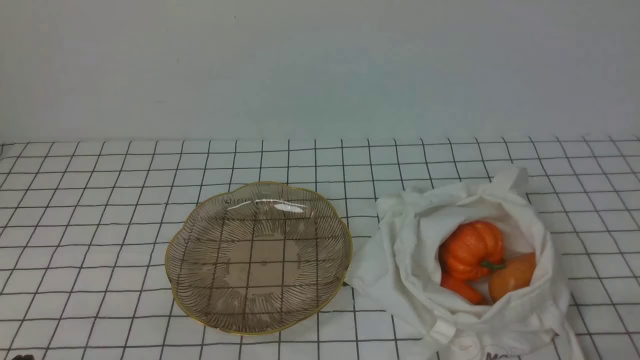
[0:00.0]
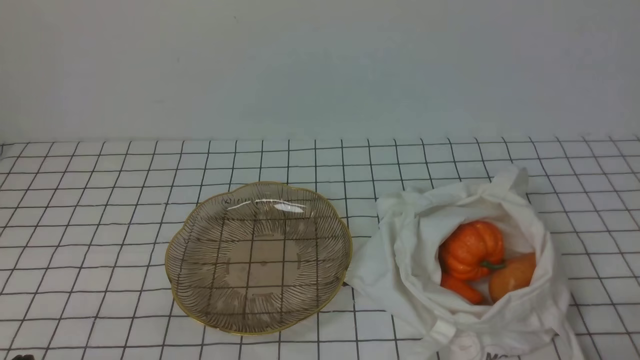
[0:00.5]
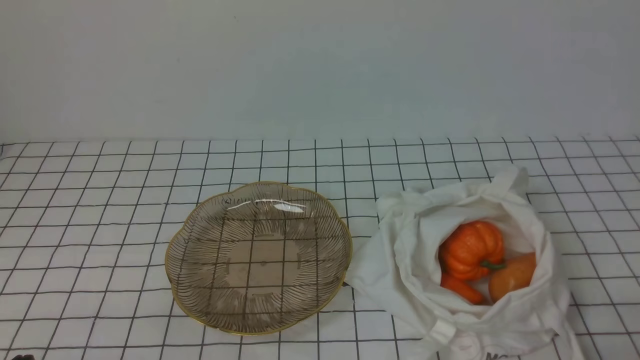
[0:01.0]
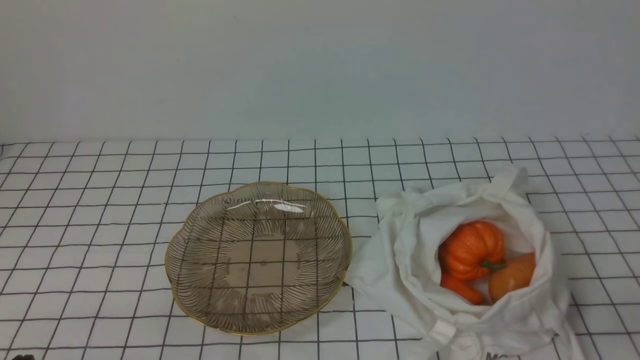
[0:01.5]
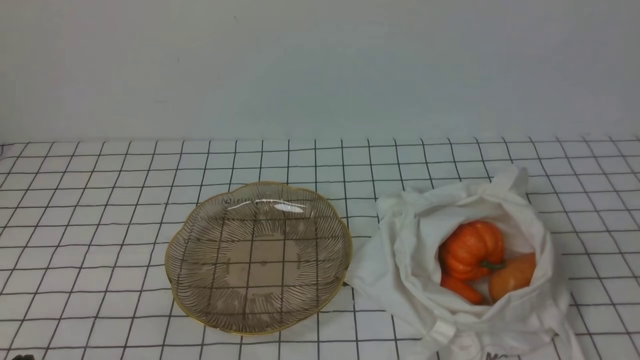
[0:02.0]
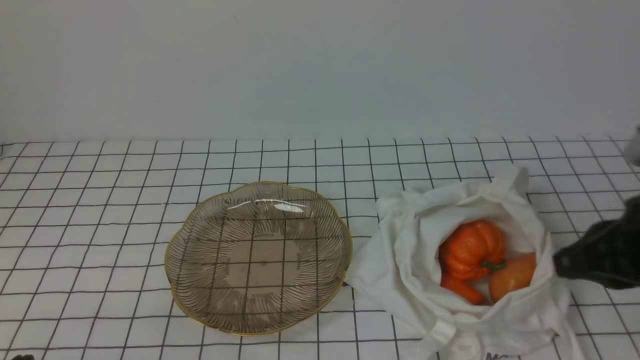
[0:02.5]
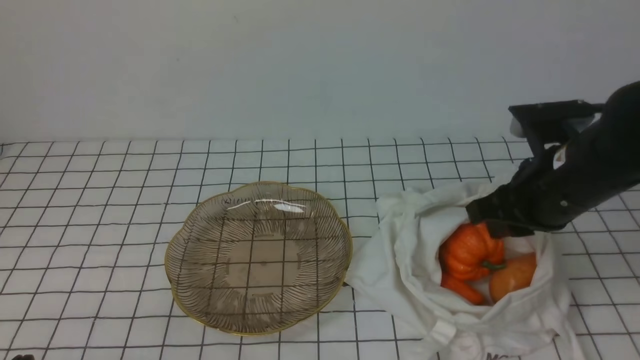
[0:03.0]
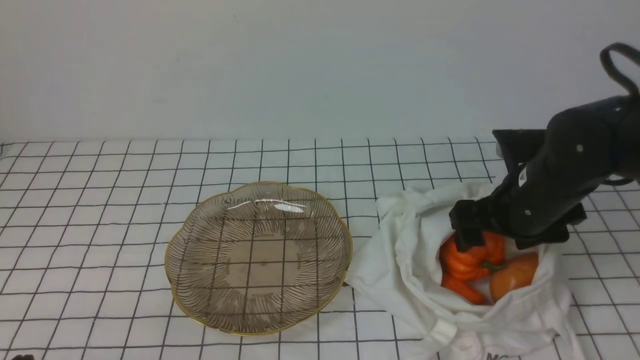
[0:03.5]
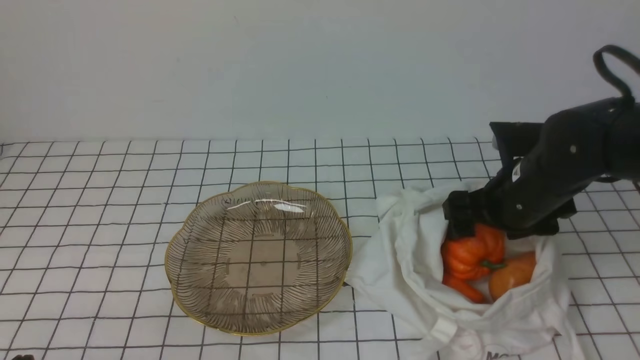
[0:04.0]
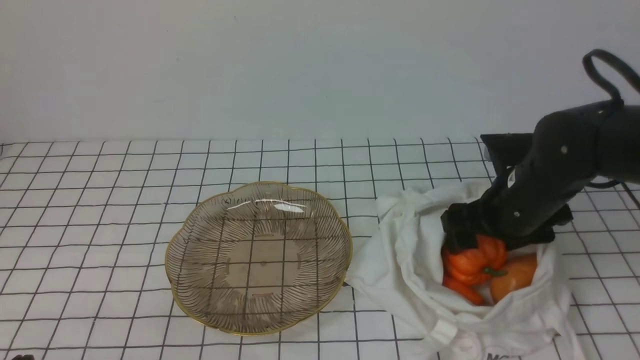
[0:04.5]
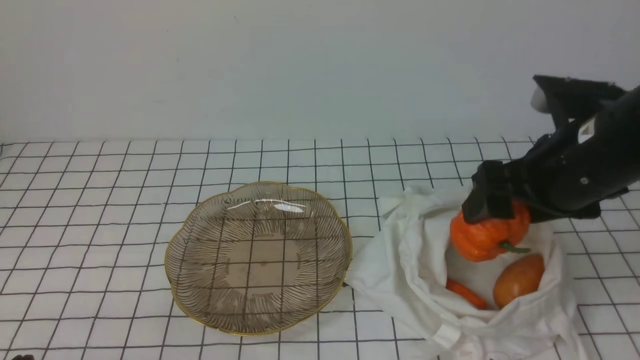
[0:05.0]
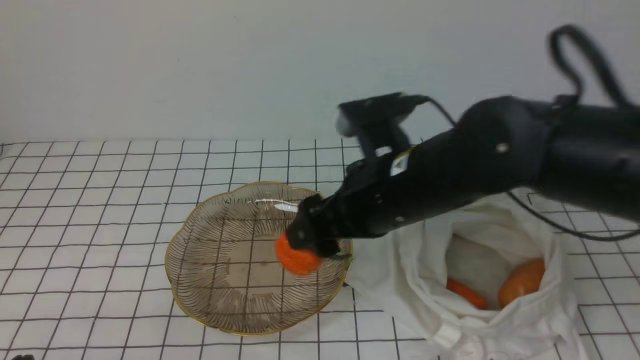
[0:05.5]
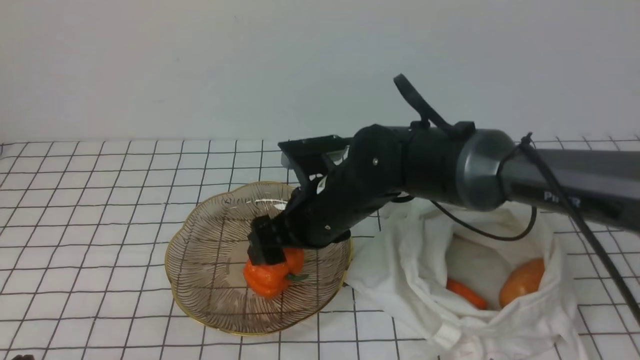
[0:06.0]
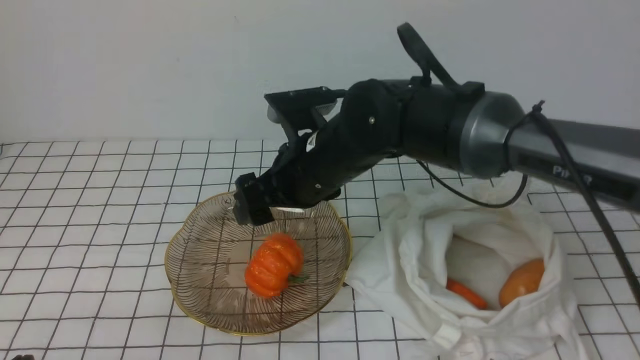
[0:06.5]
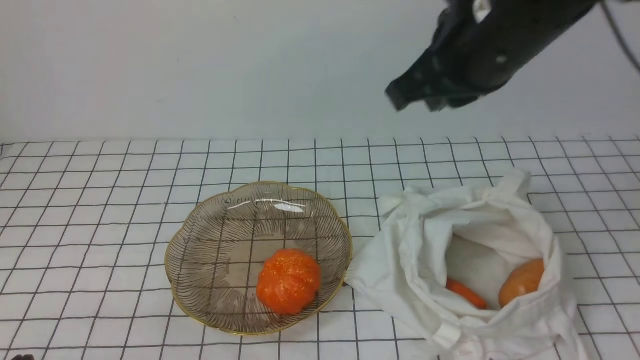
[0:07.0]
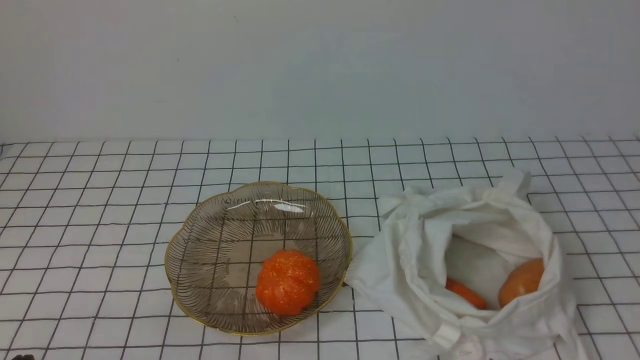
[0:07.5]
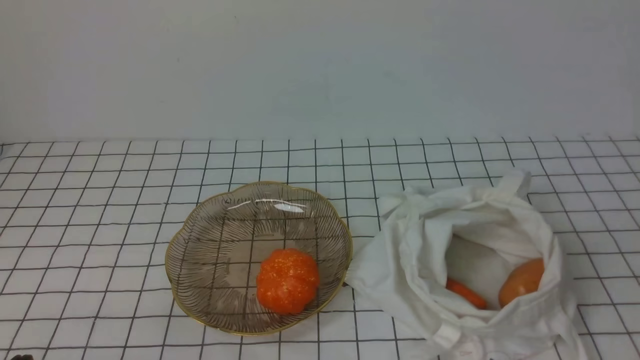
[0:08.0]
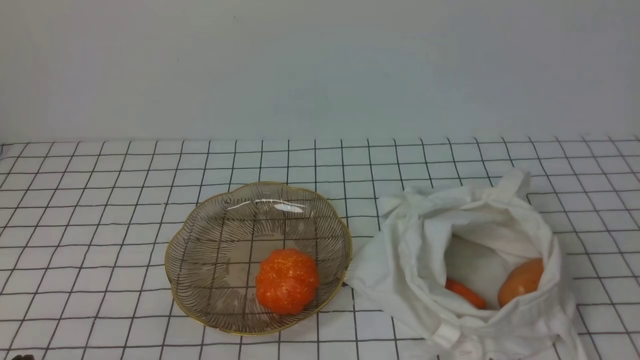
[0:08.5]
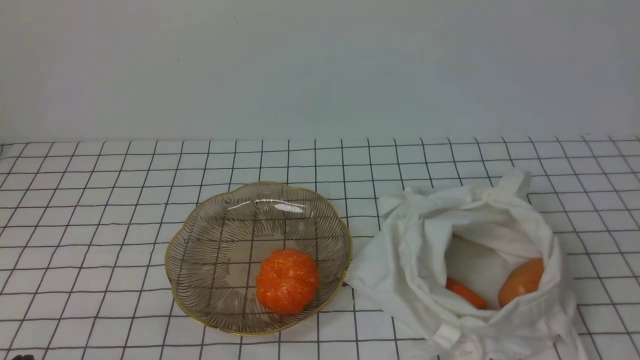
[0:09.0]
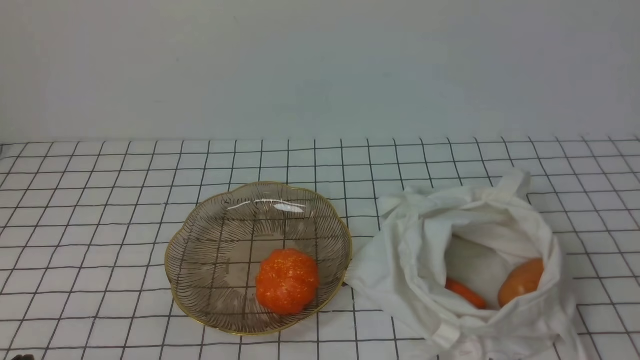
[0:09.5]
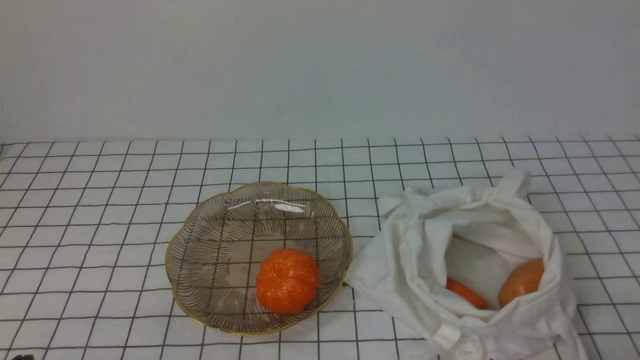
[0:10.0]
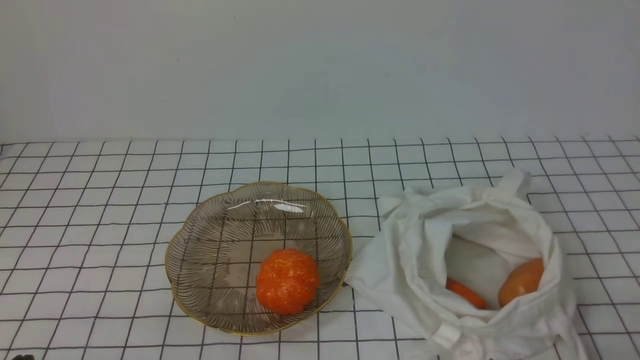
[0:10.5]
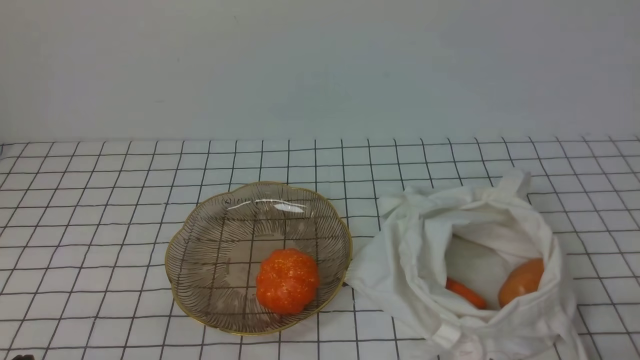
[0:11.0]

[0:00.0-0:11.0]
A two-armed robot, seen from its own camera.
Task of the whole recording: take vegetables from bag on white checkered tablecloth place on plate.
Step, 0:00.0 to 0:04.5: Grasp the pumpkin with right gripper.
Step, 0:05.0 to 0:06.0: Place the pumpkin on the plate with right gripper.
0:02.0 to 0:03.5: The right gripper travels forward by about 25 cm, and opens up.
0:03.5 to 0:05.5: The right gripper heads to the left, covering approximately 15 cm.
0:05.5 to 0:07.5: The right gripper moves to the right, backward and upward, some 35 cm, and closes.

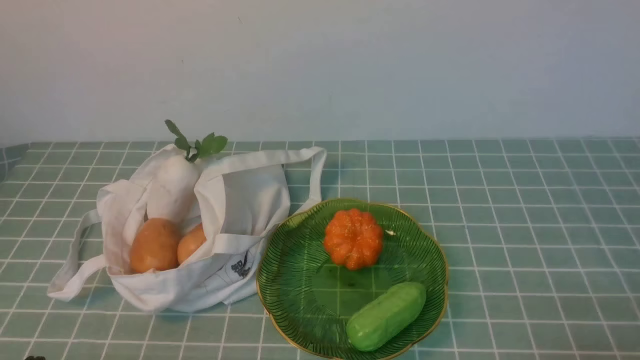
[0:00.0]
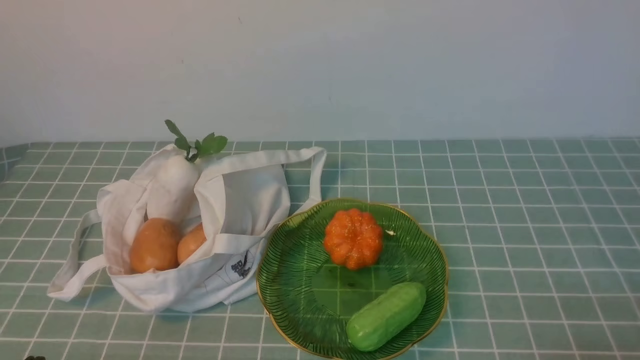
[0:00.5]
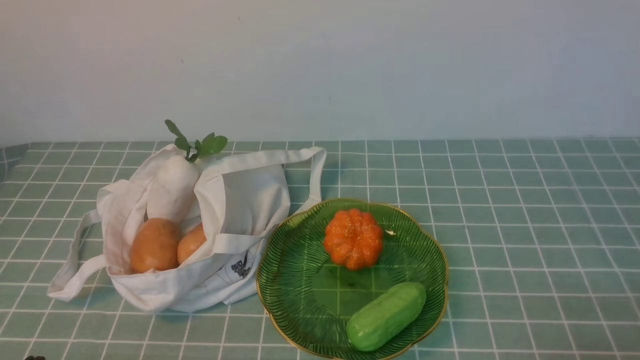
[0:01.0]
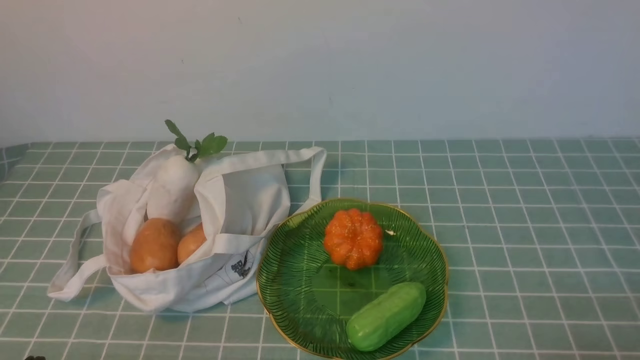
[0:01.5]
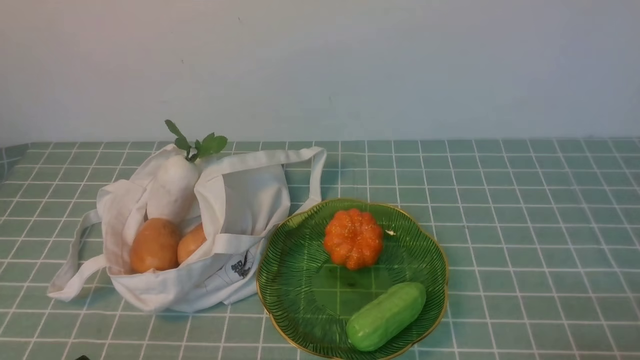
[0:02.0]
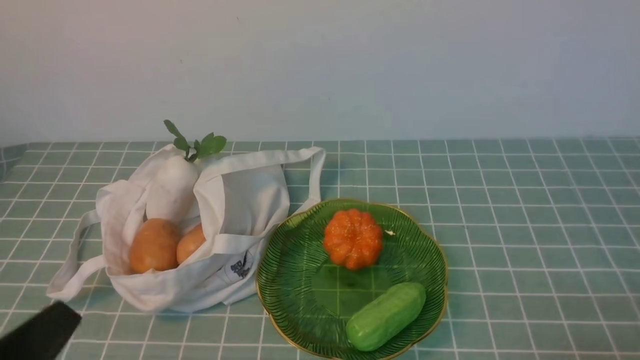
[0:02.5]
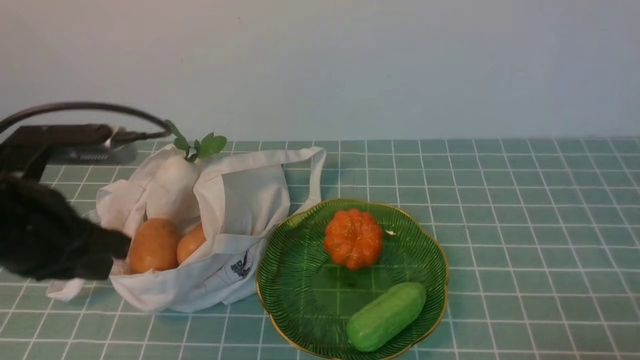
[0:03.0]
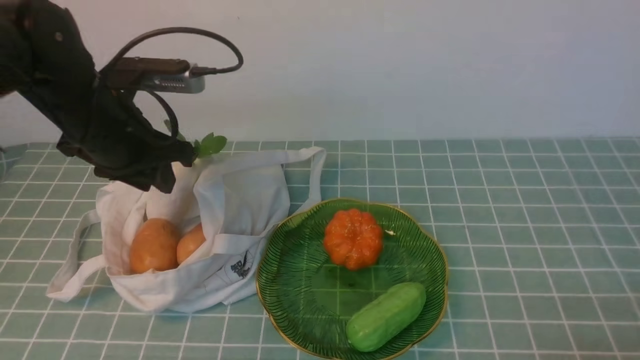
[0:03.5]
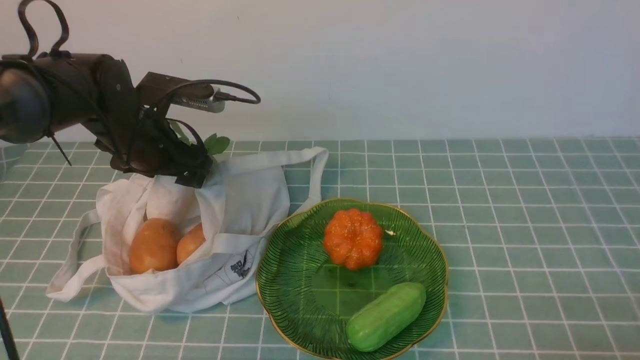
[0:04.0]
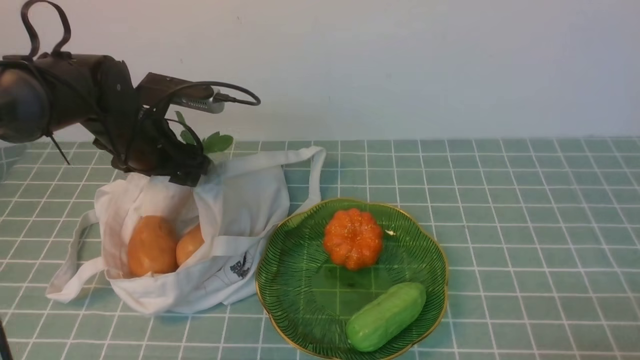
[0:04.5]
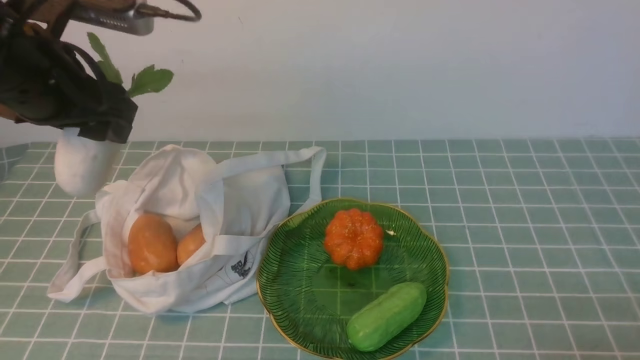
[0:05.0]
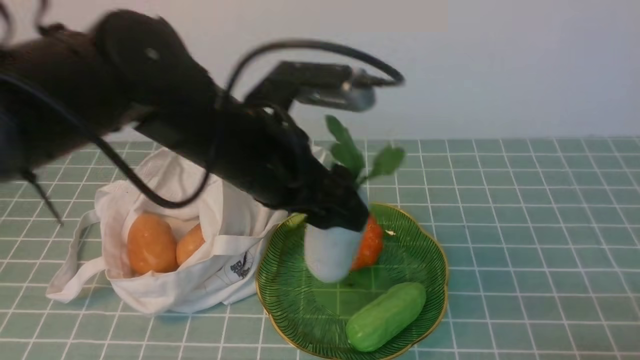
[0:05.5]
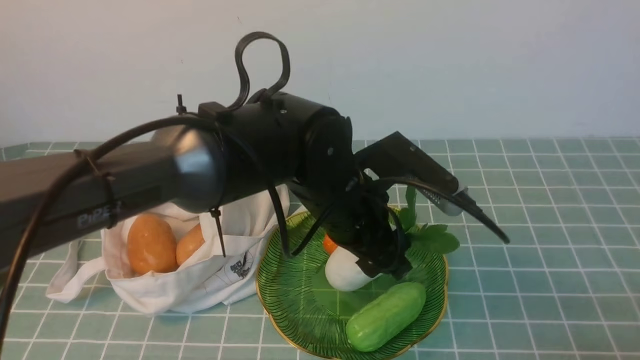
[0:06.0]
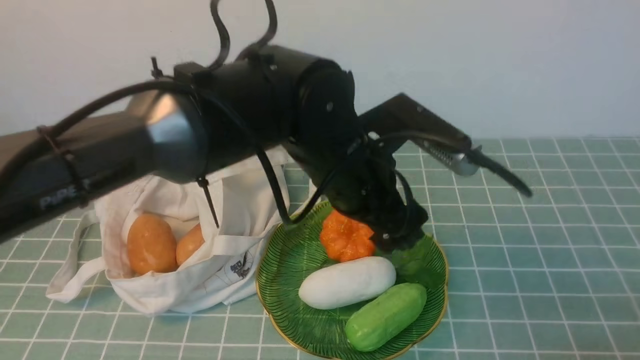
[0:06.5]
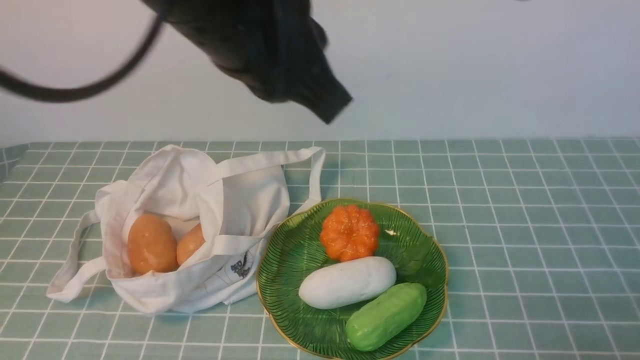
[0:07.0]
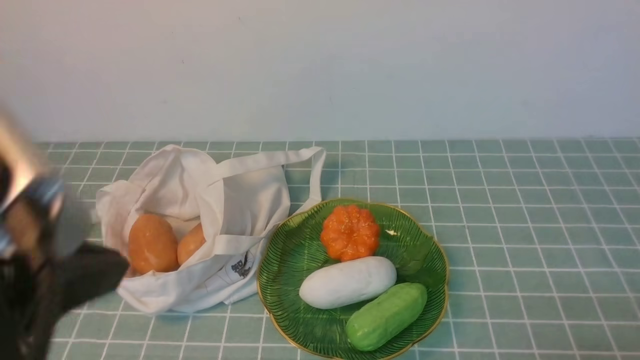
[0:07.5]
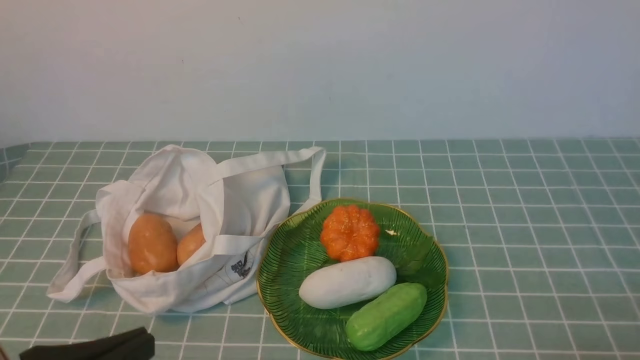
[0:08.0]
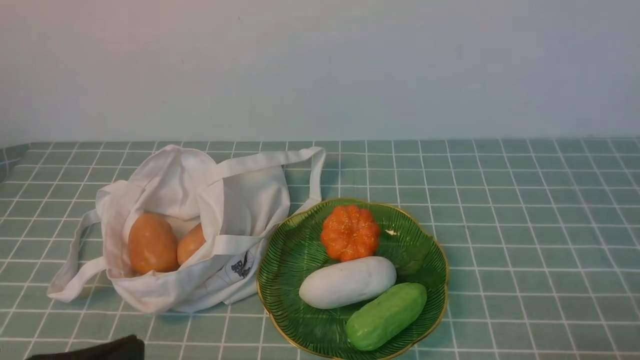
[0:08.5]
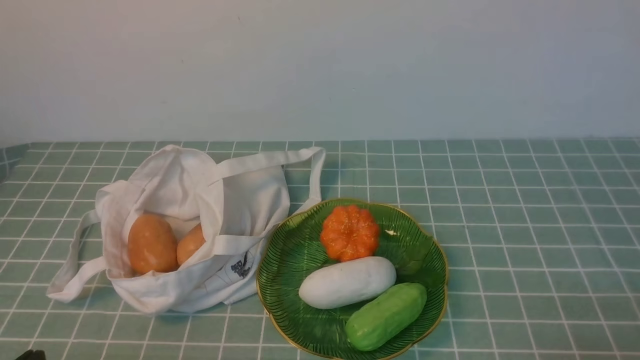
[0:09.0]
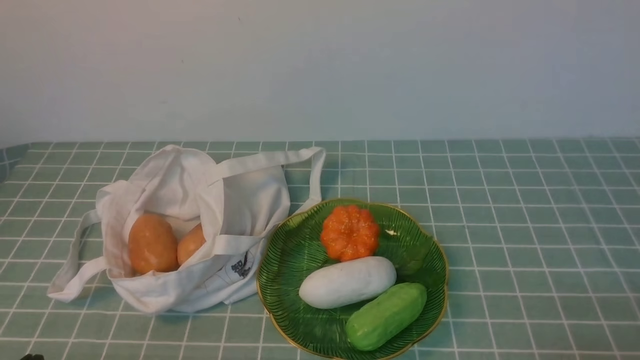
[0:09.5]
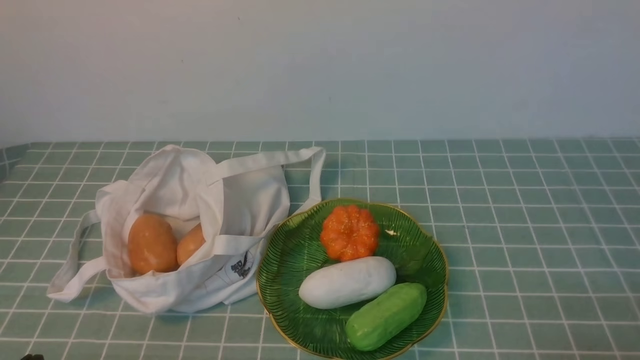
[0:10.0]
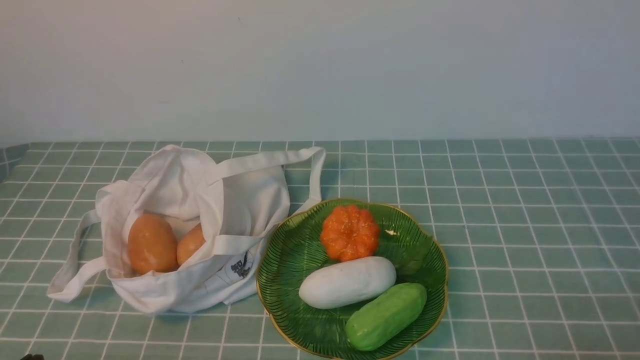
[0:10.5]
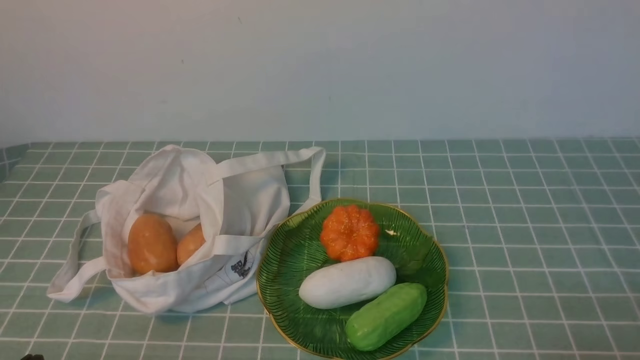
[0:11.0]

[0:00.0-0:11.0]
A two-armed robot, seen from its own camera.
Task of the whole recording: take vegetables from cloth bag on blue coffee tablecloth place on plate.
Step, 0:00.0 to 0:04.0: Grasp the radish with left gripper.
Step, 0:04.5 to 0:06.5: Place the radish on the plate with left gripper.
0:02.0 to 0:03.5: The left gripper heads forward, covering about 30 cm.
0:03.5 to 0:05.5: The left gripper moves to the right and backward, approximately 15 cm, and opens its fingers.
0:05.5 to 0:07.5: The left gripper travels backward, upward and to the left by roughly 20 cm, and closes.
0:07.5 to 0:09.0: The left gripper goes roughly 25 cm downward.
